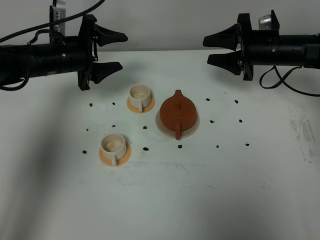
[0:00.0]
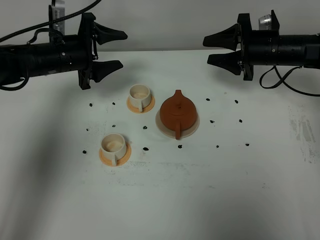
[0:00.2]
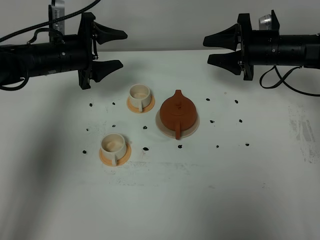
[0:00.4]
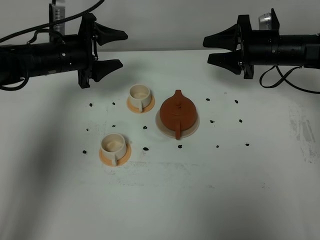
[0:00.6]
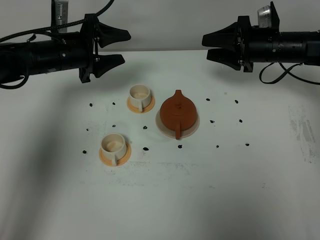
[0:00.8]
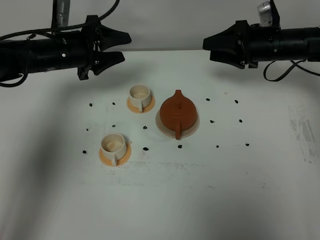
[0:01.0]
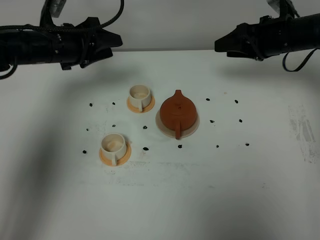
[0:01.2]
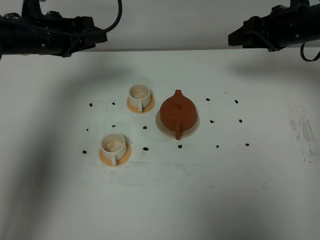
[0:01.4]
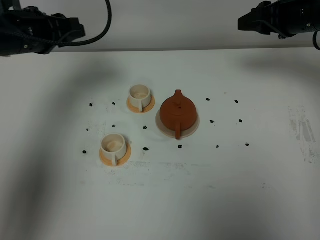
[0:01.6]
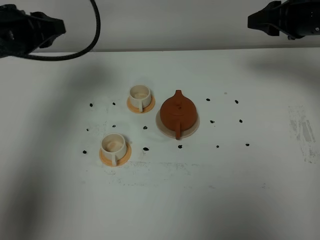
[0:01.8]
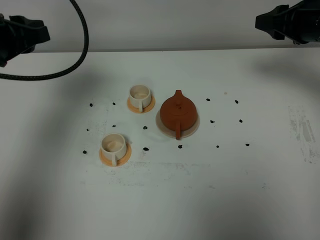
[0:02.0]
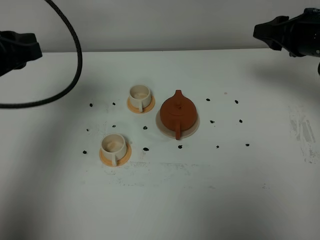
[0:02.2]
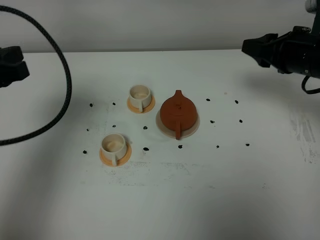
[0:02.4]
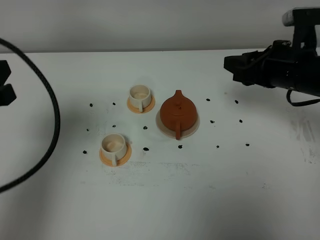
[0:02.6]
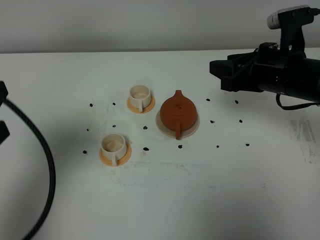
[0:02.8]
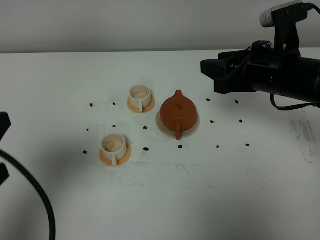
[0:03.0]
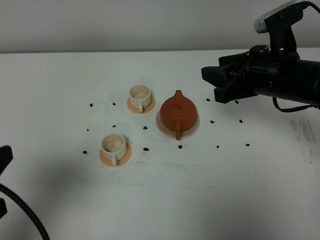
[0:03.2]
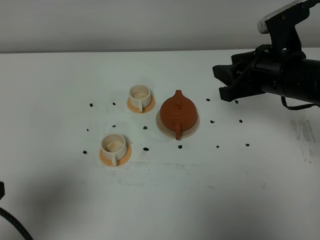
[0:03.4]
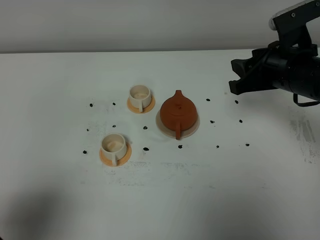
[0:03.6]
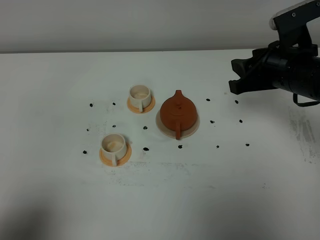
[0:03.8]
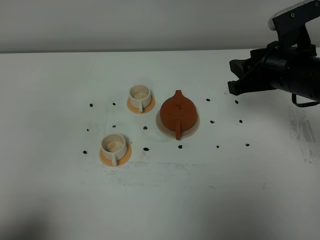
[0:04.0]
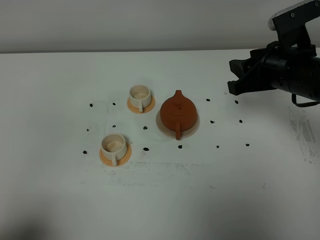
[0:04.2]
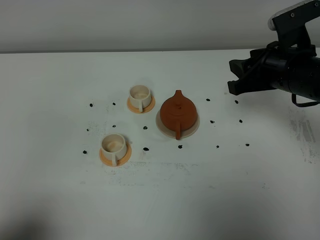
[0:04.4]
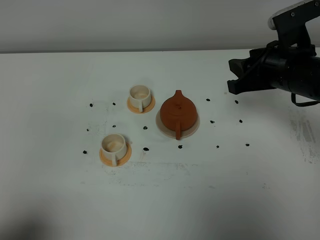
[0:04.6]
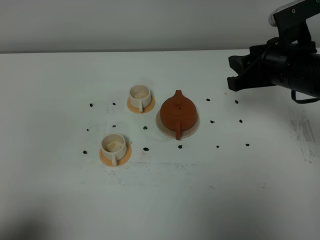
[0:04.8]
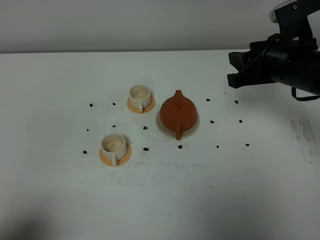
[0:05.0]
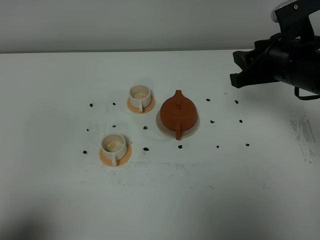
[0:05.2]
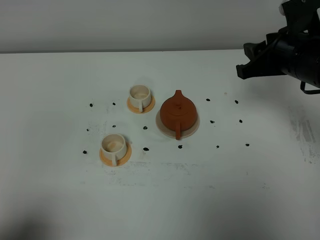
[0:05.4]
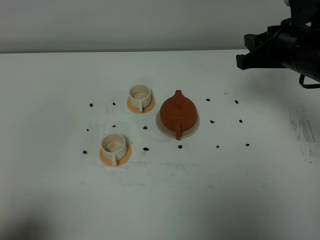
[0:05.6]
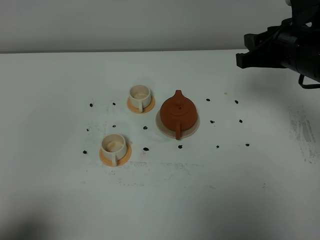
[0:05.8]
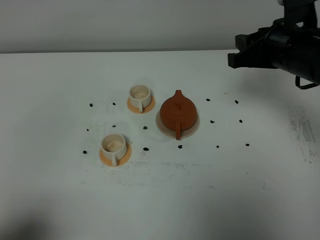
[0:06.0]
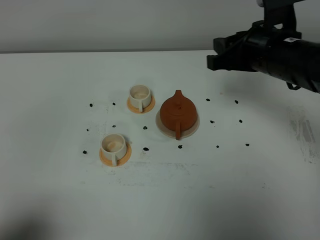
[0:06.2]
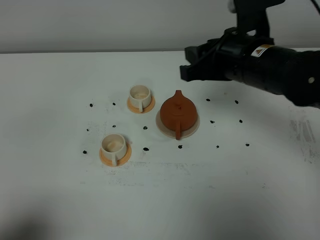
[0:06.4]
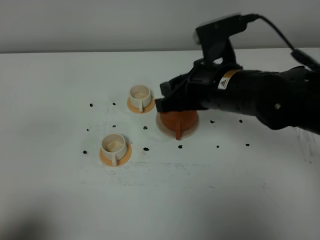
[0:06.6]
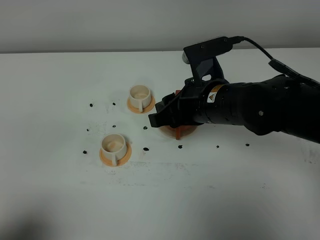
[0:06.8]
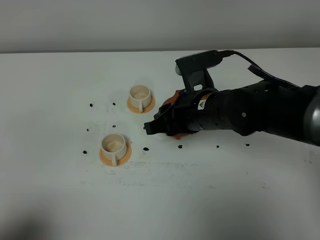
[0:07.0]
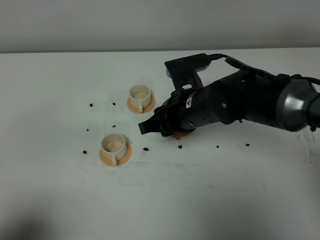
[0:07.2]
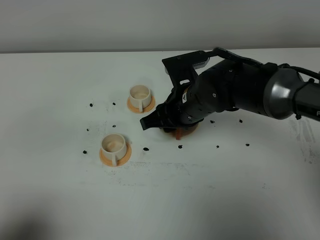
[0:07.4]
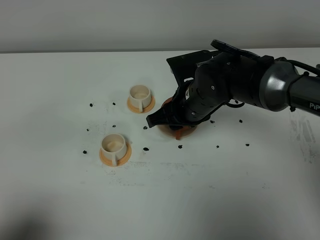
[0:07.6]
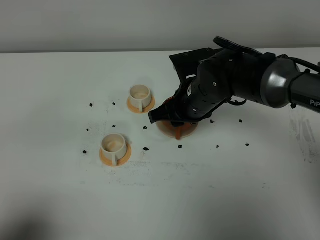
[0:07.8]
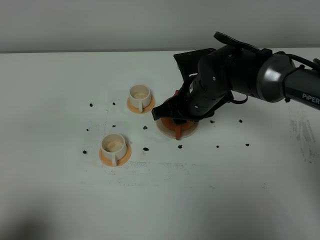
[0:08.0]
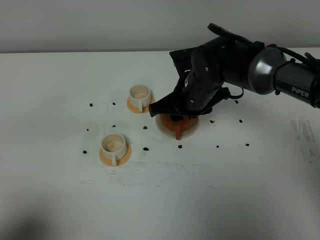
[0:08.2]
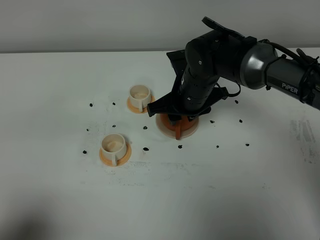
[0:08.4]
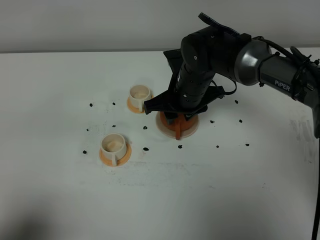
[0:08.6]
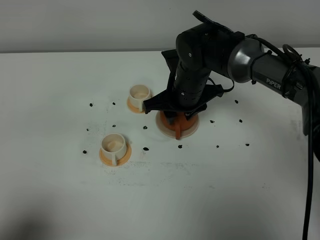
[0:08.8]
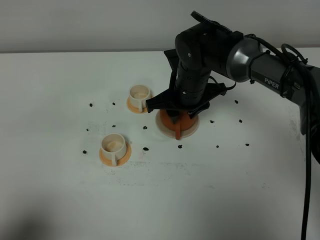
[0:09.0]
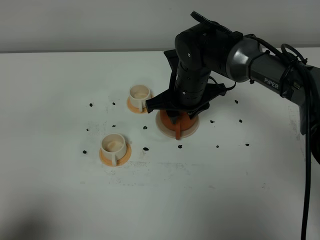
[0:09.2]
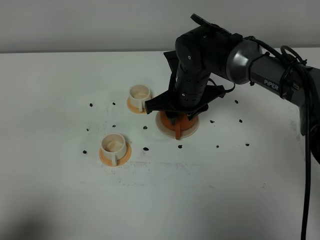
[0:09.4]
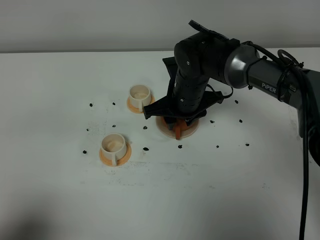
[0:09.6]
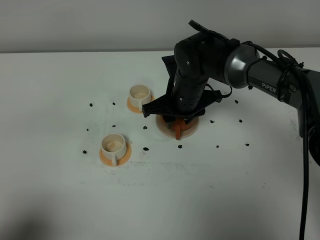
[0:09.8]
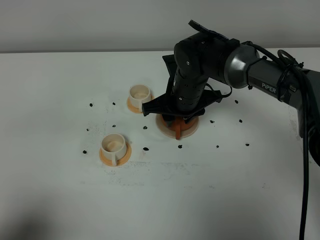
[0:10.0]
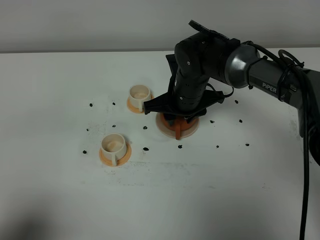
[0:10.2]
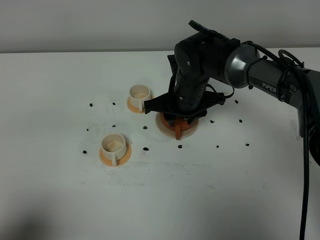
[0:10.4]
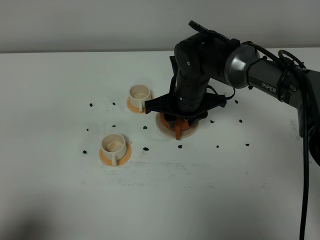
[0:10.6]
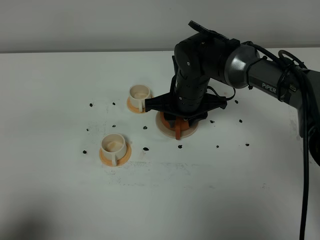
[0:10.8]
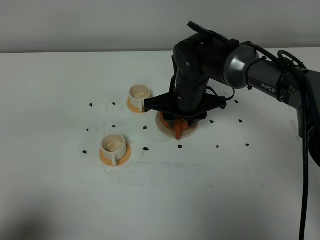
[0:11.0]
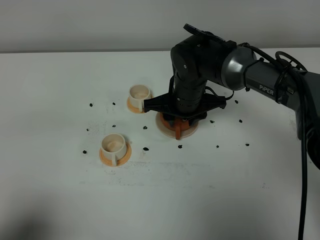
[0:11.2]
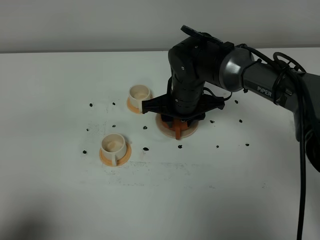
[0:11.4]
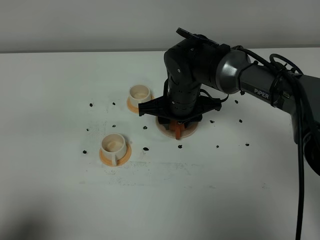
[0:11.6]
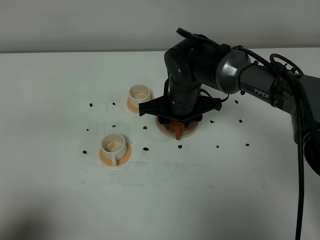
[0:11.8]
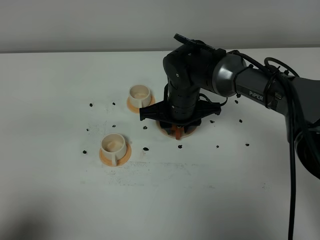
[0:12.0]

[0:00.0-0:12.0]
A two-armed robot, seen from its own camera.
Task of the whole recording: grasp the brown teapot and pour the tea into the two white teacups one by one, put the brown teapot back in its original place.
0:00.0 to 0:01.6: The right gripper moves upward, approximately 10 cm, while the left gripper is displaced upward and backward by approximately 10 cm, and closes up.
0:01.6 to 0:03.0: The left gripper heads backward, covering about 25 cm. The right gripper heads backward and to the left, covering some 15 cm.
0:03.0 to 0:04.4: The left gripper travels backward by approximately 10 cm.
0:04.4 to 0:06.0: The grippers stay close to where they were, moving slightly.
0:06.0 to 0:07.6: The right gripper shifts some 15 cm to the left and downward.
0:07.6 to 0:09.0: The right gripper travels forward by roughly 5 cm.
0:09.0 to 0:12.0: The grippers move only a little.

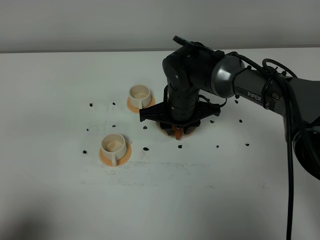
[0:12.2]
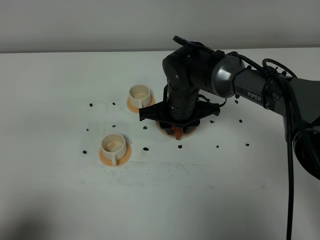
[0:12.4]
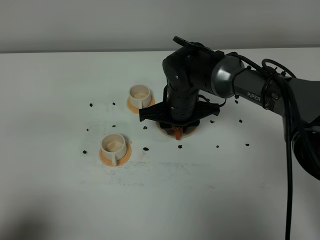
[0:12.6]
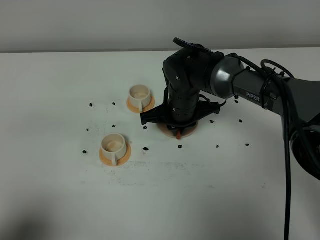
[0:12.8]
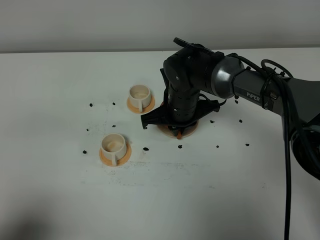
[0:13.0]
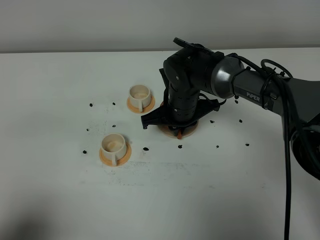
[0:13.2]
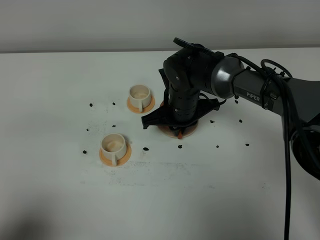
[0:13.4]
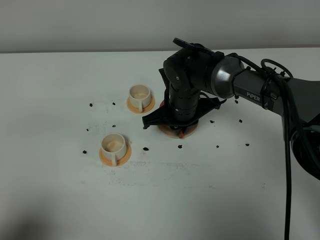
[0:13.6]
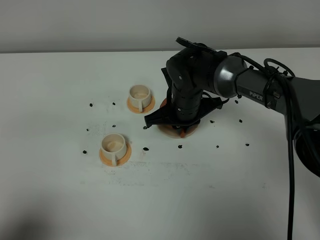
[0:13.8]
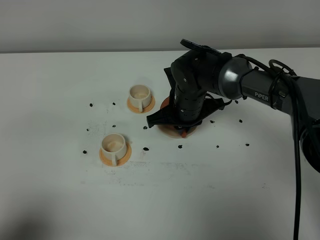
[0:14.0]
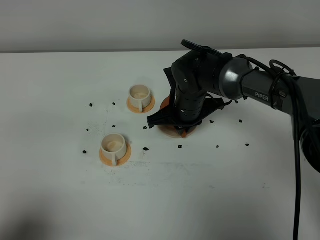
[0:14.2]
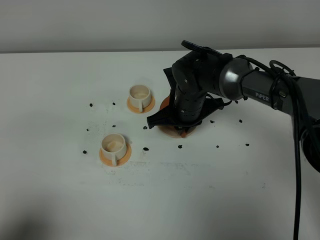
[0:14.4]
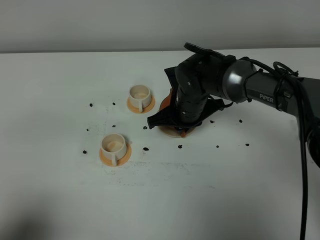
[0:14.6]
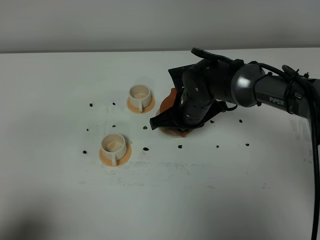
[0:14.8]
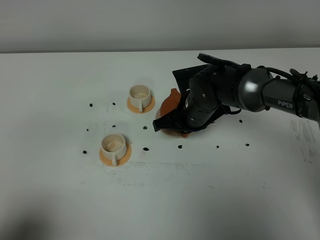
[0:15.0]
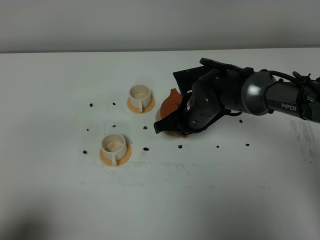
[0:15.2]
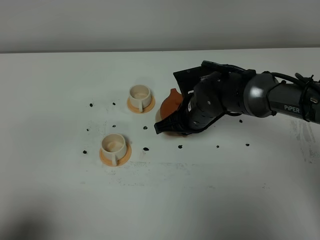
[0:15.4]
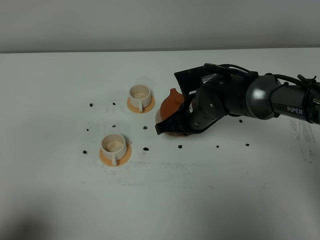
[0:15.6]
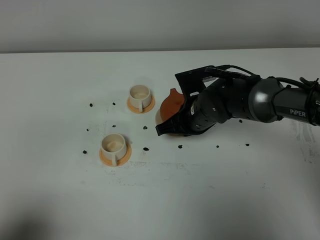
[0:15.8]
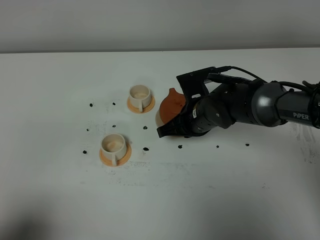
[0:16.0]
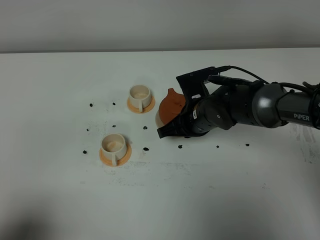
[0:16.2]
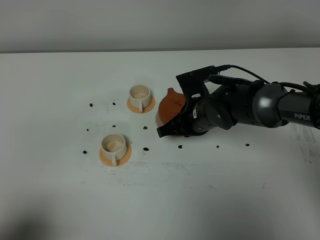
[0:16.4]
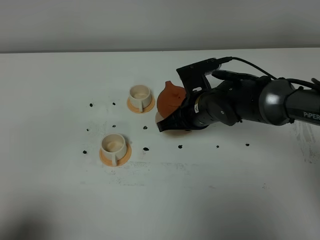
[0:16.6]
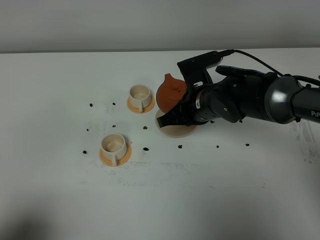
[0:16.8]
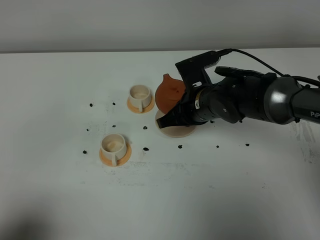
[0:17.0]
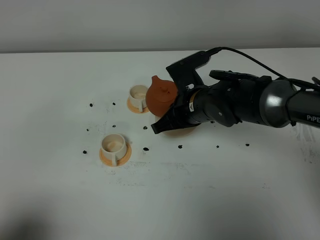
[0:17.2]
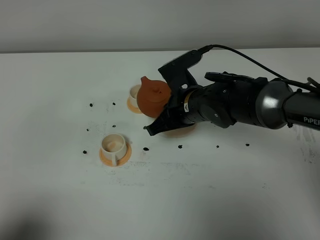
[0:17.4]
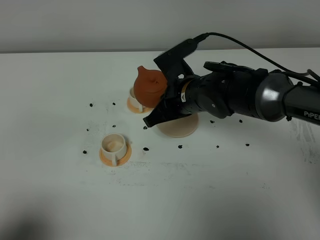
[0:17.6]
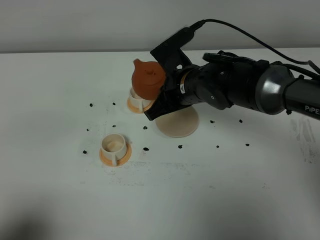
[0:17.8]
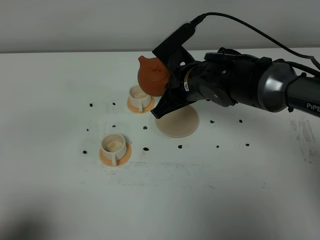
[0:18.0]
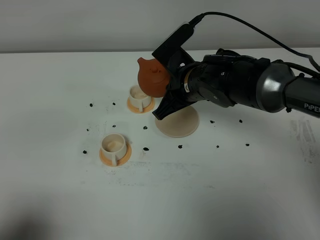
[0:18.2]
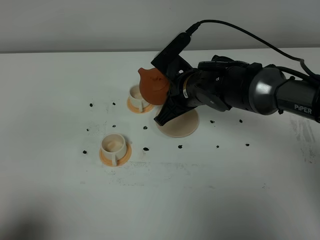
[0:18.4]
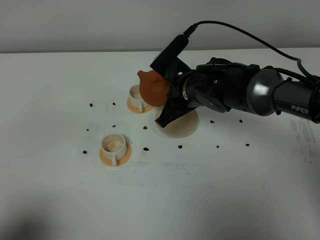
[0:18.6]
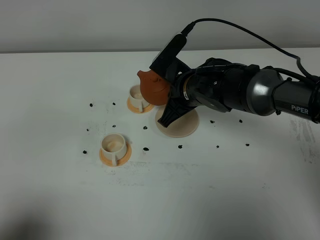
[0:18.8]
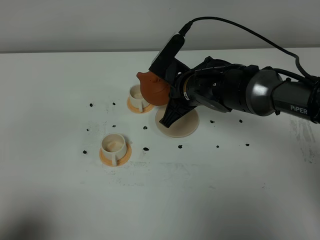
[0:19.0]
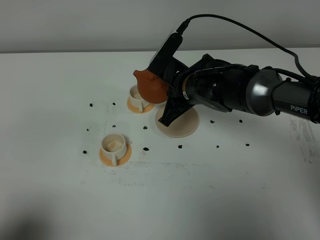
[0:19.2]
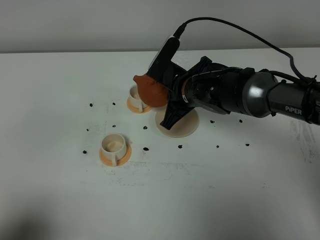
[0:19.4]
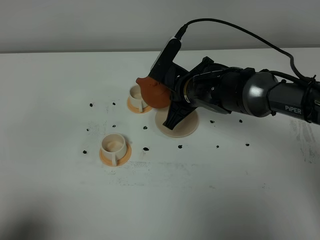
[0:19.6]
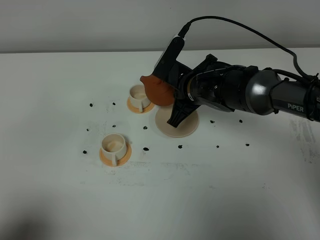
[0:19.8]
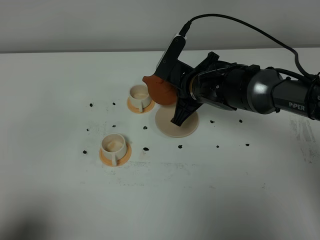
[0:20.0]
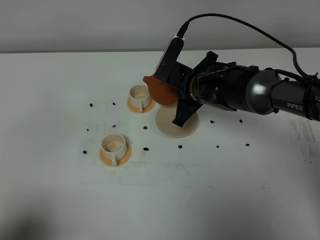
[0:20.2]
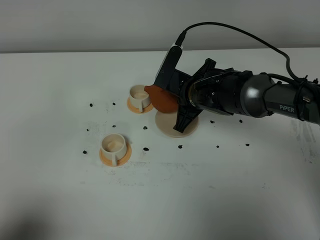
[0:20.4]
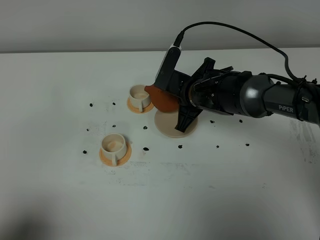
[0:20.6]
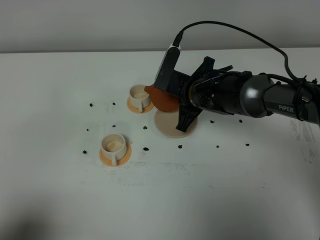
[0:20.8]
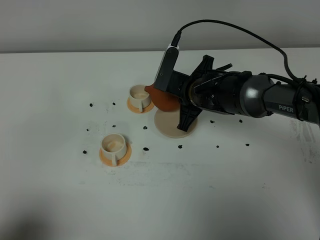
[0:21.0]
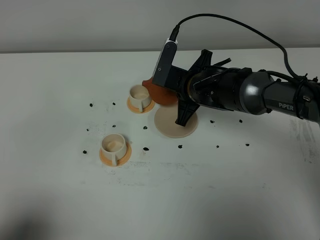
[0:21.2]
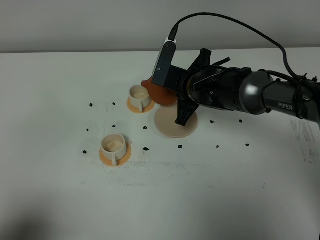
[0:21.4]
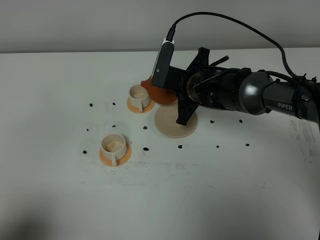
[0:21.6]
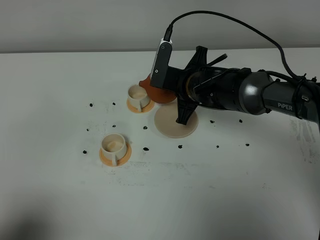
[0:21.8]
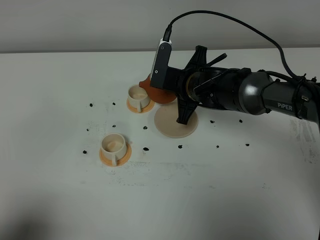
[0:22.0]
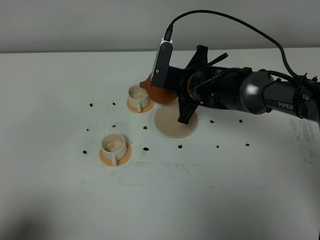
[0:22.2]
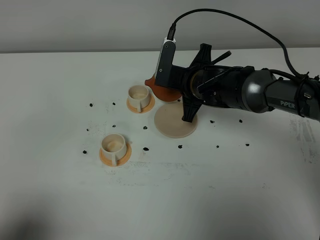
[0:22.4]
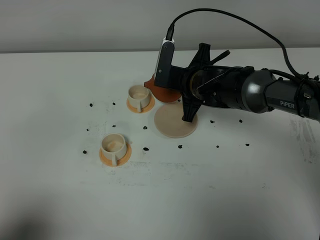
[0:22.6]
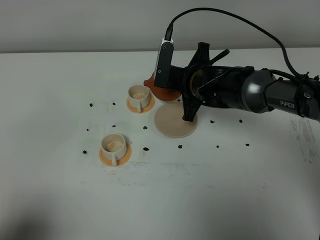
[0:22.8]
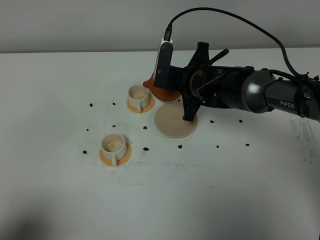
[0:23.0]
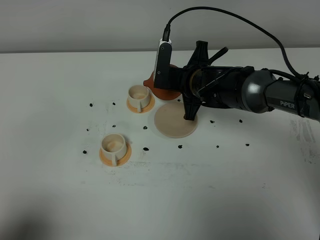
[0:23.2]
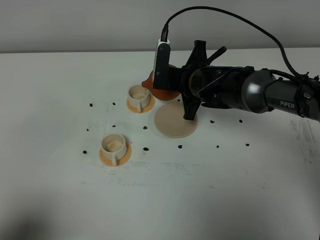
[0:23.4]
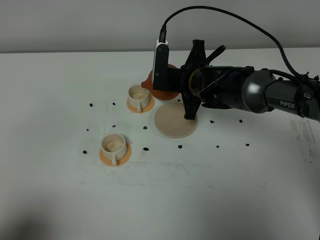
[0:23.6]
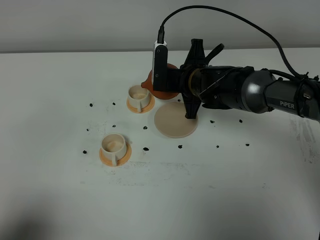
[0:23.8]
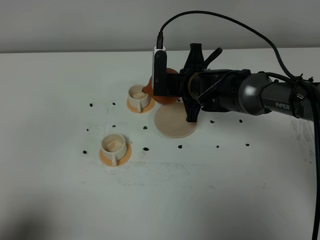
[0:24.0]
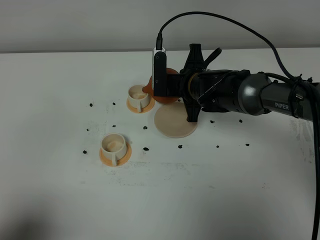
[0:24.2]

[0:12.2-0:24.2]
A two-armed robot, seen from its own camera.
Task of the whole recording: grasp the brown teapot and pour the tea into the two white teacups one by one, put the brown teapot back in its original place.
Step, 0:12.2 to 0:16.0: Pick up the teapot with the right gripper.
0:12.2 to 0:13.8: The right gripper closes.
0:13.8 to 0:15.2: There are only small adjustments of the grippers.
0:15.2 to 0:16.6: There are only small adjustments of the grippers.
0:18.2 to 0:19.8: The grippers move only a little.
0:19.8 to 0:21.2: The grippers stay close to where they were, moving slightly.
0:21.2 to 0:22.6: There are only small adjustments of the grippers.
0:22.6 to 0:24.2: The grippers make only small movements.
